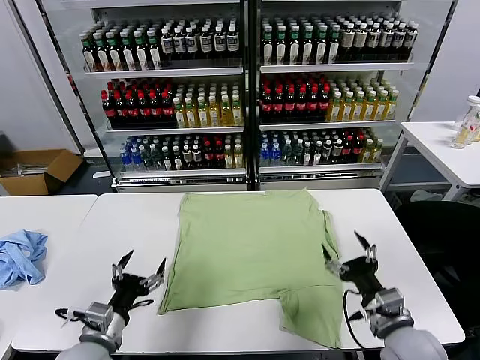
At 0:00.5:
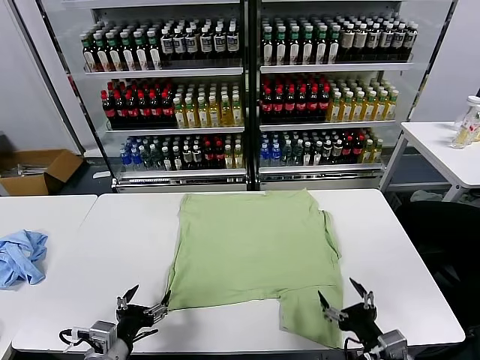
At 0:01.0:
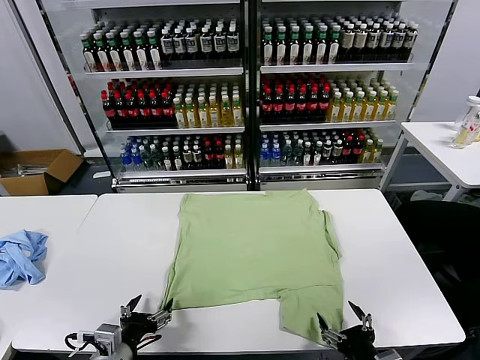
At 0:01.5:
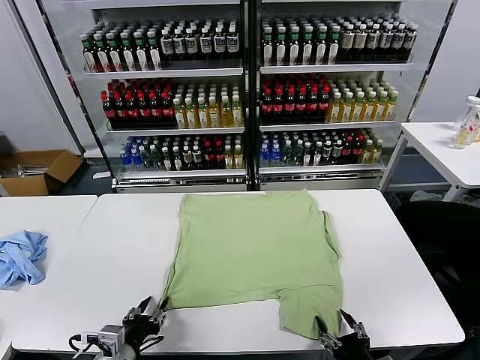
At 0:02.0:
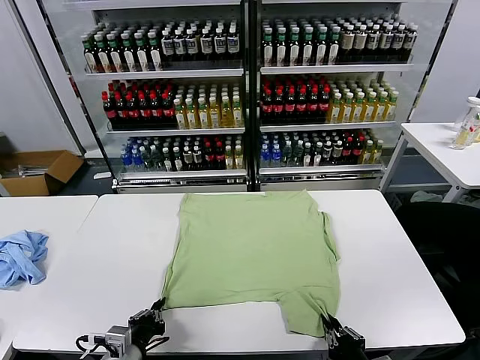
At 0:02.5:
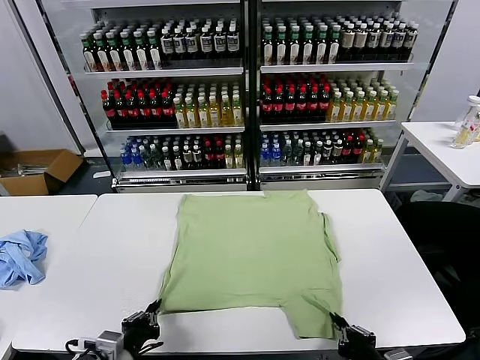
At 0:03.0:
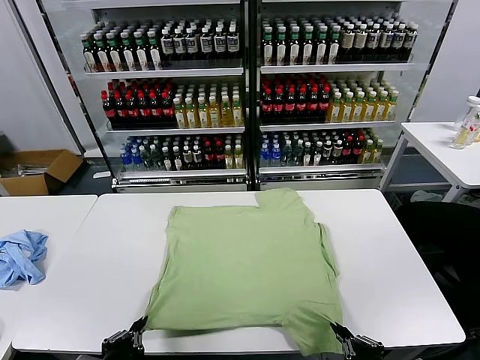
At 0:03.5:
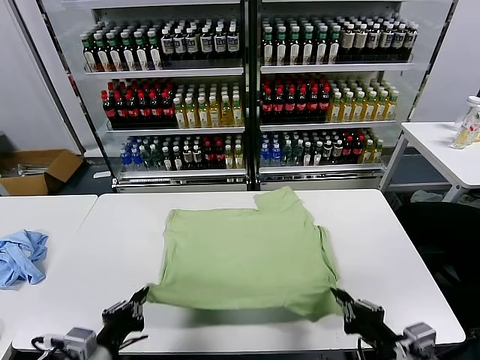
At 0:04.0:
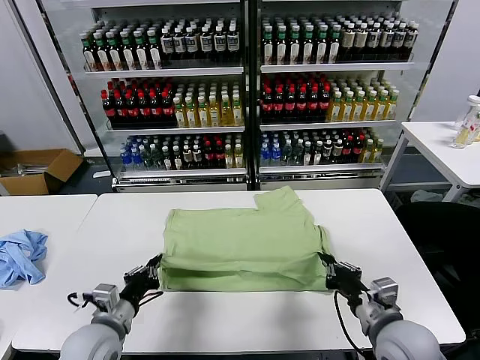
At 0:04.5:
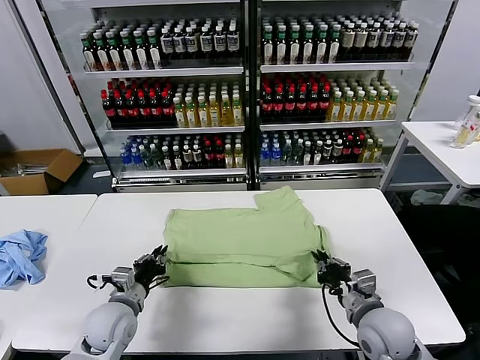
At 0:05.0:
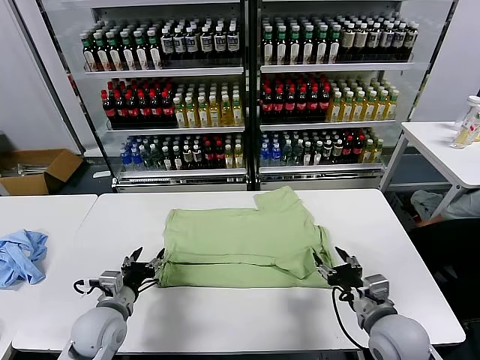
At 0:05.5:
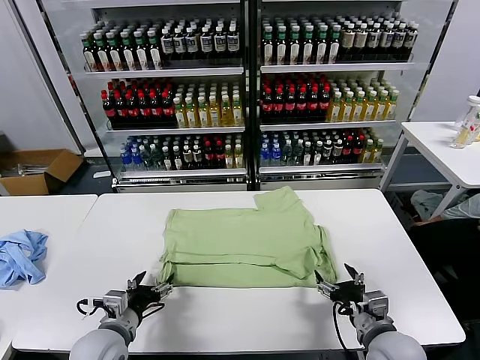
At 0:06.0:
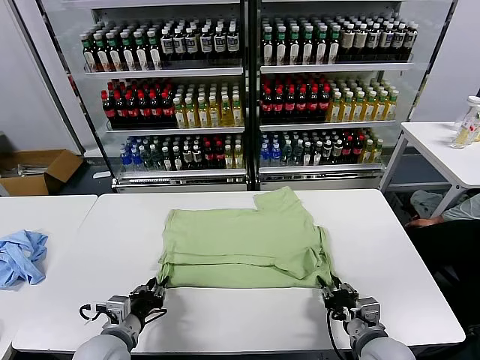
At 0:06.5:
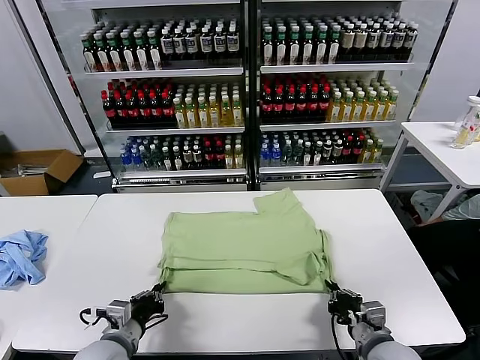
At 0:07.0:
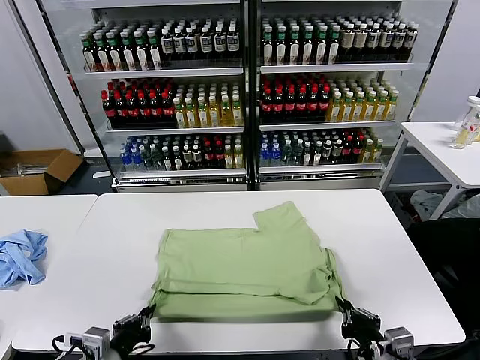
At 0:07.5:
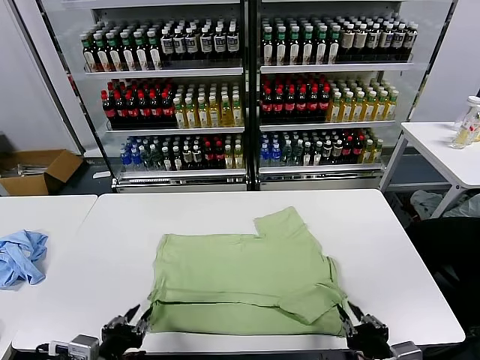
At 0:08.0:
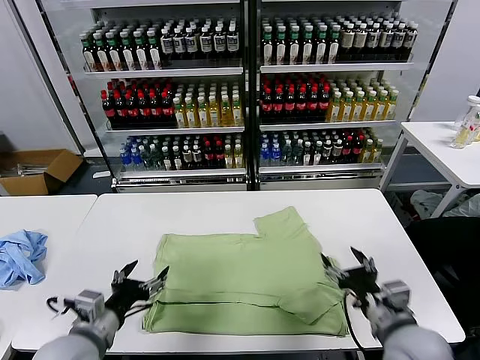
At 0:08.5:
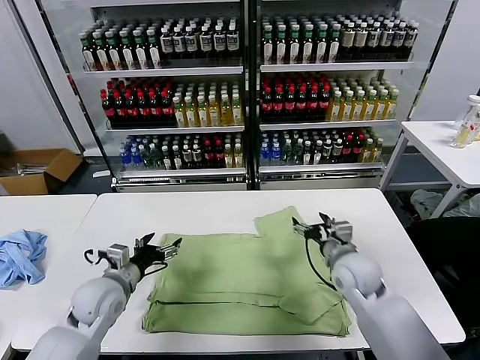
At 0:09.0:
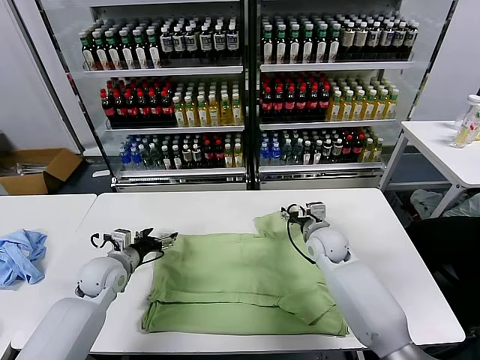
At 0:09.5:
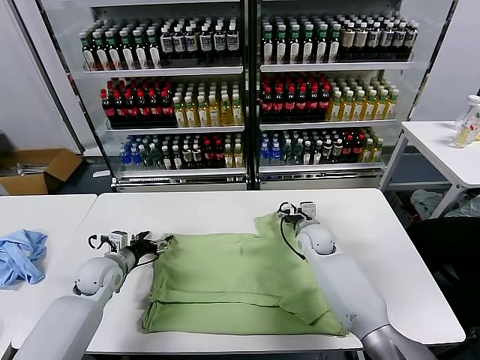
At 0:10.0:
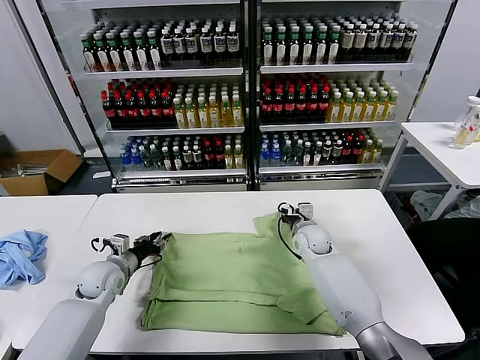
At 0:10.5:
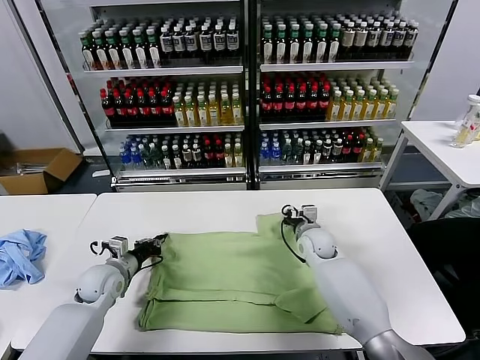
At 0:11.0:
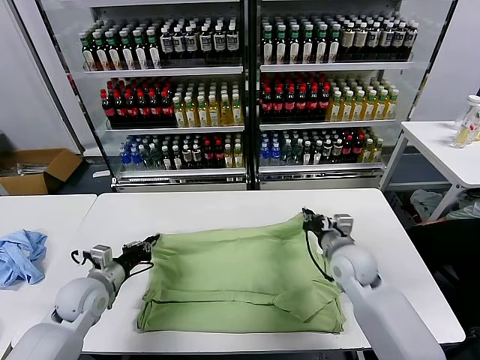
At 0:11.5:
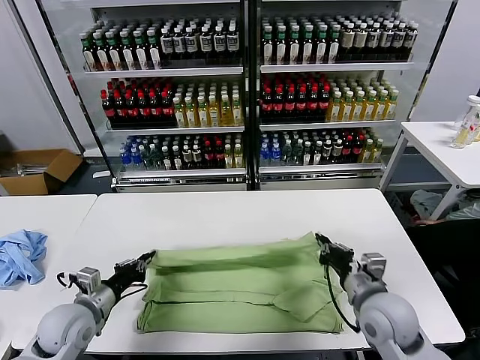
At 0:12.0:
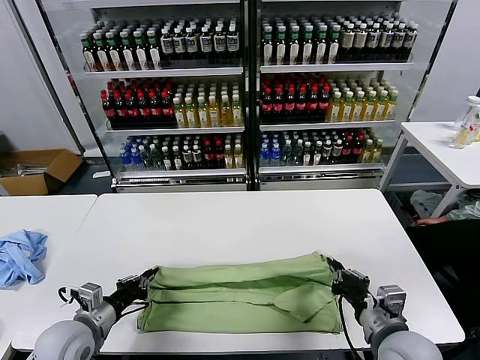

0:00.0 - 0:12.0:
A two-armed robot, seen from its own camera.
Task of the whole recording: fold and organize the clothes.
Step, 0:00.0 - 0:02.0: use both grippers simultaneously to clamp the lower edge of the clothing fabric.
Step, 0:03.0 - 0:05.0: use both grippers to drag the lower edge of the fabric forward and fold it over the upper edge.
Step, 0:05.5 - 0:07.5: Drag the clothes downward with both gripper.
Step, 0:08.0 - 0:10.0: use both grippers simultaneously to clamp the upper edge of the clothing fabric.
0:02.0 - 0:04.0: The left gripper shifts some 5 cm forward. The right gripper travels forward and upward by about 15 cm.
0:04.0 - 0:06.0: The right gripper goes roughly 5 cm downward, and opens and closes again; the left gripper opens and closes again.
0:06.0 - 0:08.0: Both grippers travel together upward, about 10 cm. The left gripper travels backward and back again, some 10 cm each way, and opens its fingers. Meanwhile the right gripper moves some 10 cm backward and comes back, and opens up.
0:08.0 - 0:10.0: The right gripper is displaced forward by some 25 cm, and closes, while the left gripper shifts some 20 cm forward and downward, and closes.
0:10.0 - 0:12.0: The right gripper shifts roughly 30 cm backward, and closes. The left gripper travels backward by roughly 15 cm.

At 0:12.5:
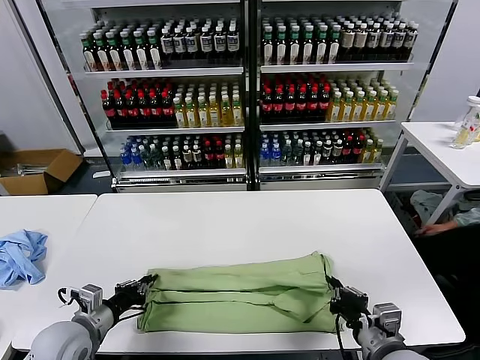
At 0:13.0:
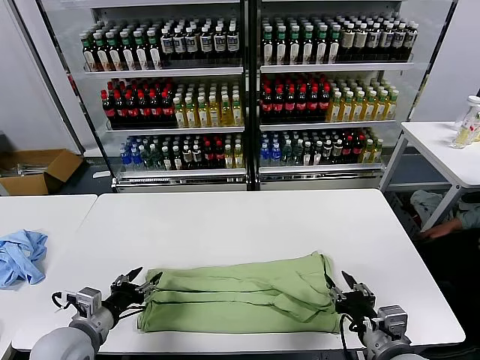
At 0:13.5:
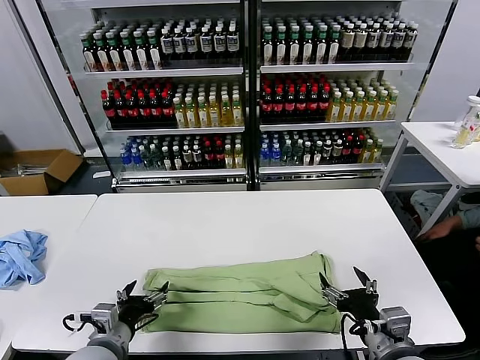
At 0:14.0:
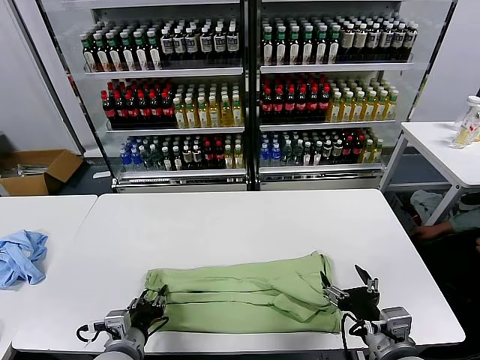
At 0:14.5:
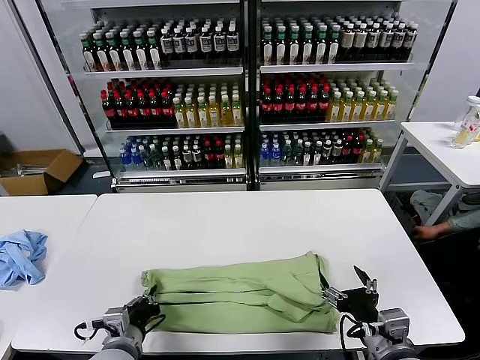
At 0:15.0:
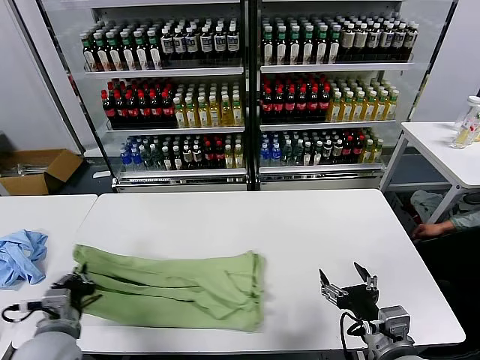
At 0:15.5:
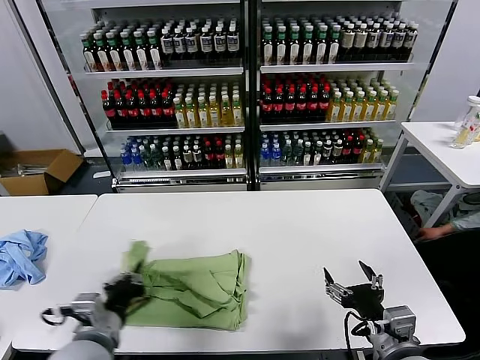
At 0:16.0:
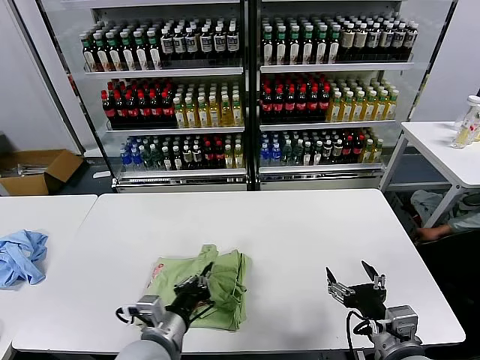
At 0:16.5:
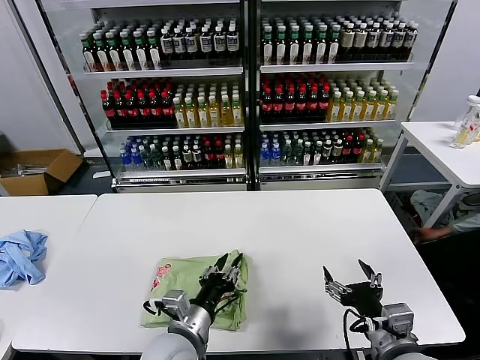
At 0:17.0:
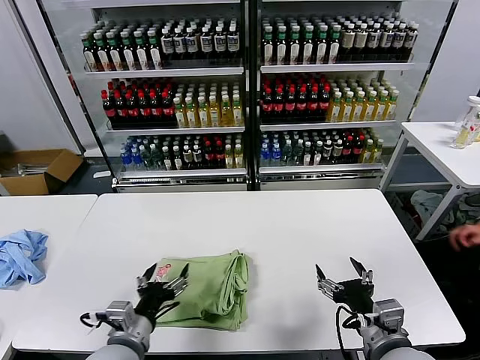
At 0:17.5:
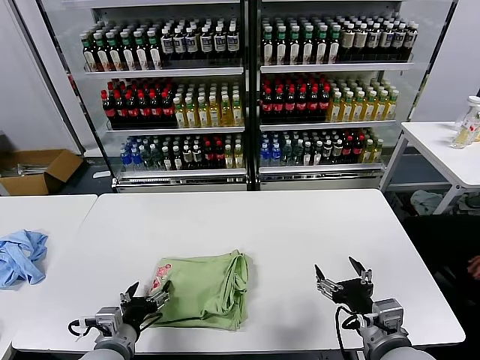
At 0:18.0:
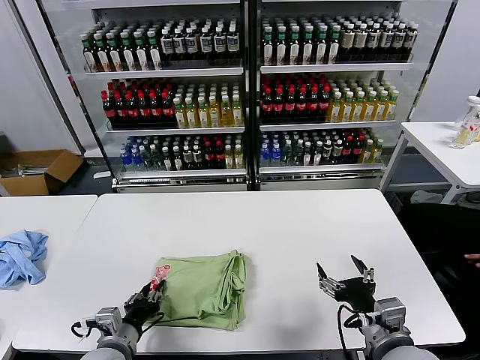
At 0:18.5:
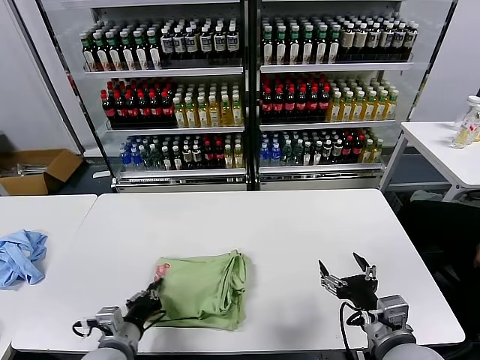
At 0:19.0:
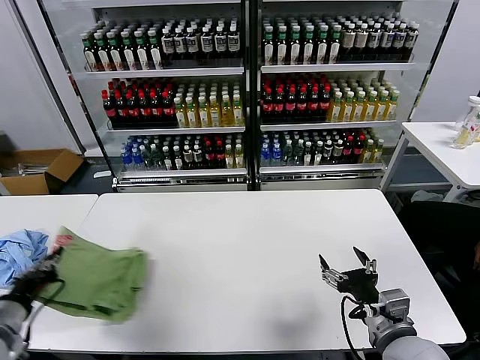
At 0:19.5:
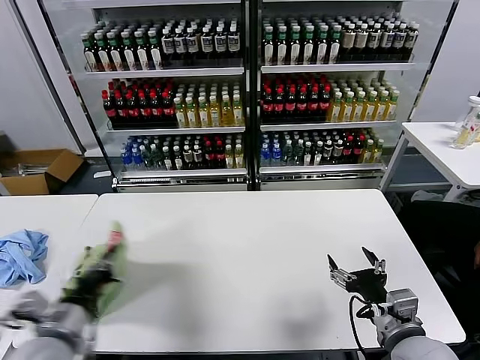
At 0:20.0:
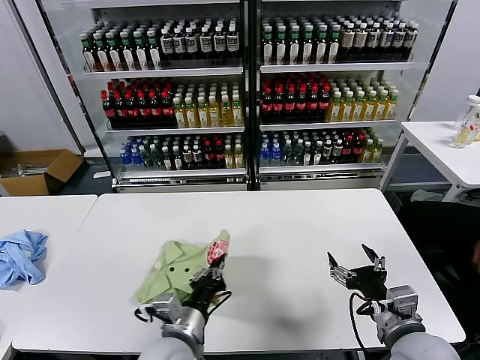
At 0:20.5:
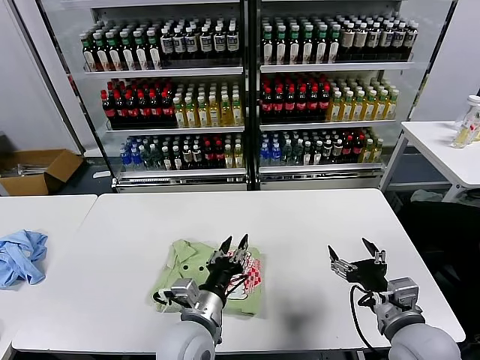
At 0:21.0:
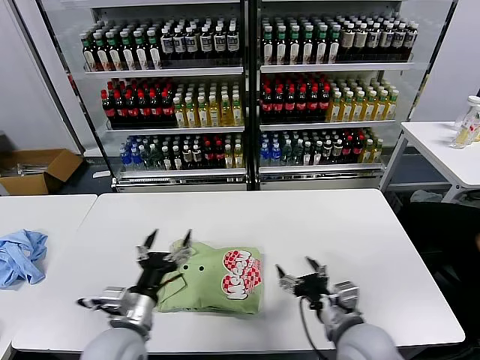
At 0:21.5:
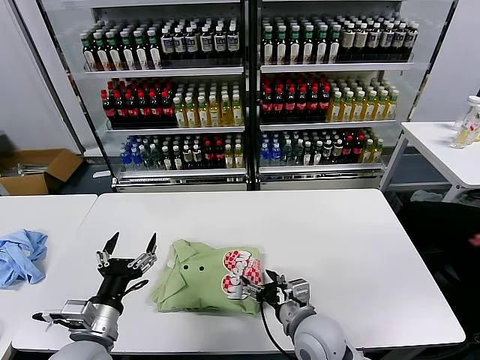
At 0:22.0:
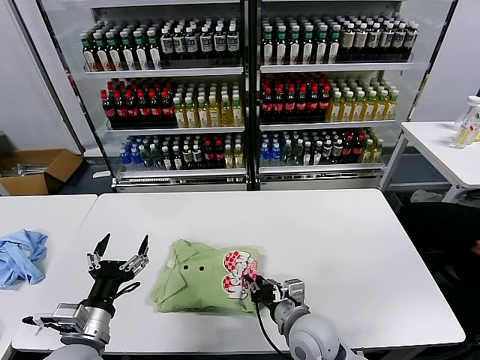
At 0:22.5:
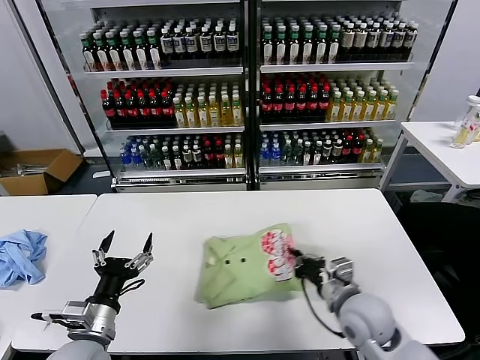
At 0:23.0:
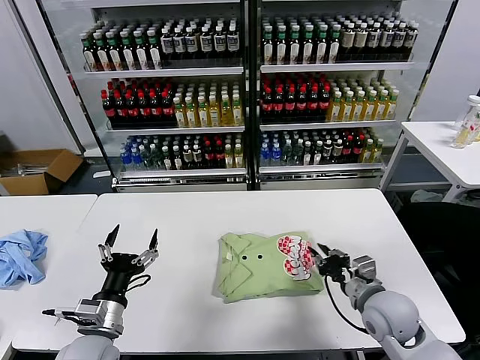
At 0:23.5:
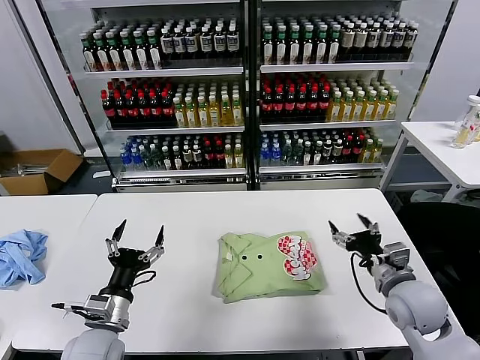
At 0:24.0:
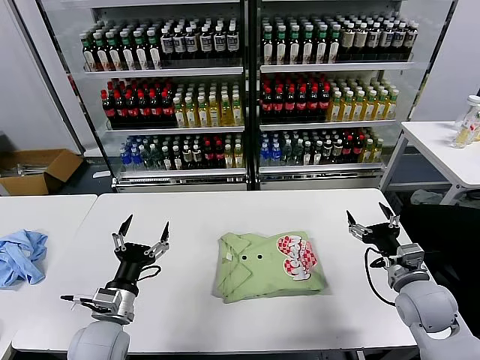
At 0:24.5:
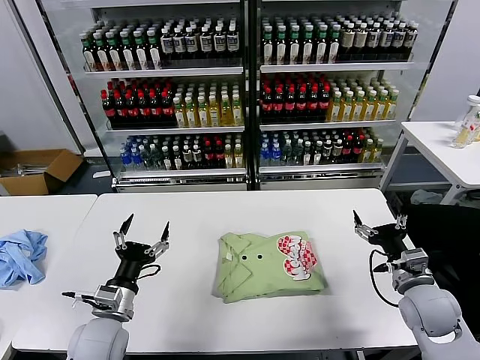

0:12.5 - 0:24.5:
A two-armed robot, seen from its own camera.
Task of the whole recording: fold and organize the clothes.
Step, 0:13.5 - 0:14.0: use the left gripper to clamp the left edge of the fabric.
Step, 0:14.5 - 0:16.5: use the left gripper to drag the left edge of the fabric to the left and folds it over the right edge.
Step, 0:17.0 - 0:20.5: Flip the folded clothes over with left gripper.
Step, 0:21.0 - 0:23.0: Drag the clothes to the center of the table.
0:12.5 - 0:14.5: The right gripper opens up, while the left gripper goes roughly 10 cm to the right, and opens and closes again.
0:14.5 - 0:16.5: The left gripper goes roughly 10 cm to the right, and opens up.
0:16.5 - 0:18.5: The left gripper heads to the left and downward, covering about 15 cm, and closes.
0:18.5 - 0:20.5: The left gripper goes approximately 20 cm to the right and upward, and opens up.
0:20.5 - 0:22.5: The left gripper moves to the left, roughly 20 cm, and opens its fingers. Meanwhile the right gripper moves forward and to the left, about 10 cm, and closes its fingers.
0:22.5 - 0:24.5: The left gripper goes roughly 5 cm forward; the right gripper travels to the right by some 15 cm, and opens up.

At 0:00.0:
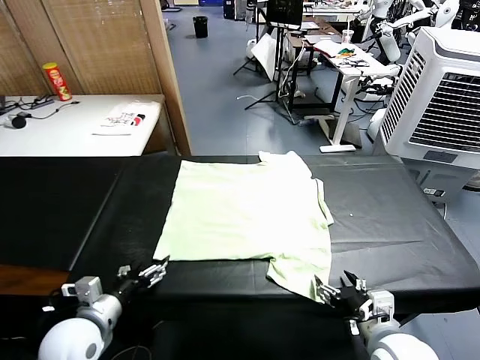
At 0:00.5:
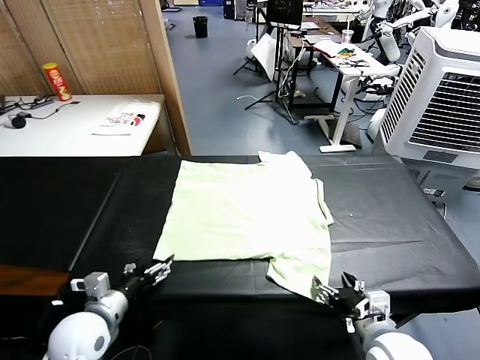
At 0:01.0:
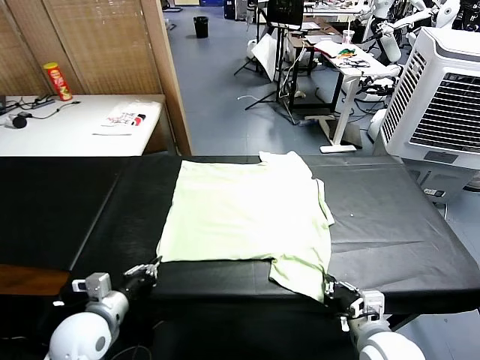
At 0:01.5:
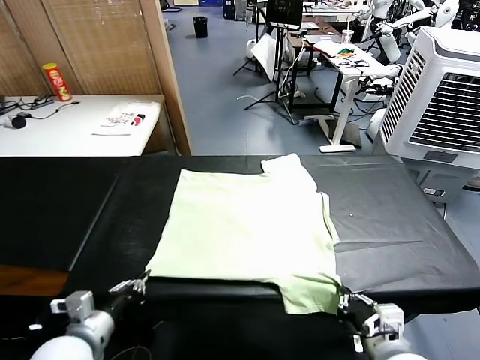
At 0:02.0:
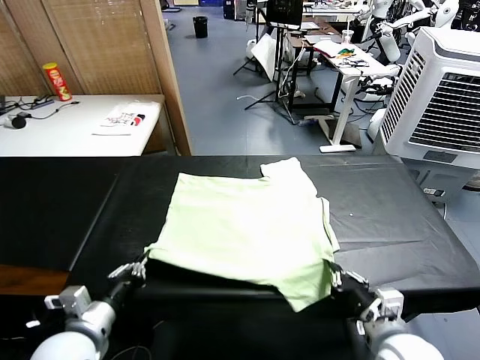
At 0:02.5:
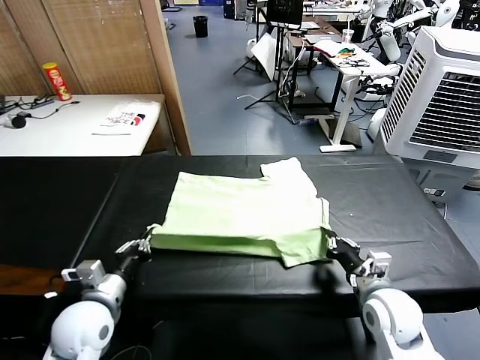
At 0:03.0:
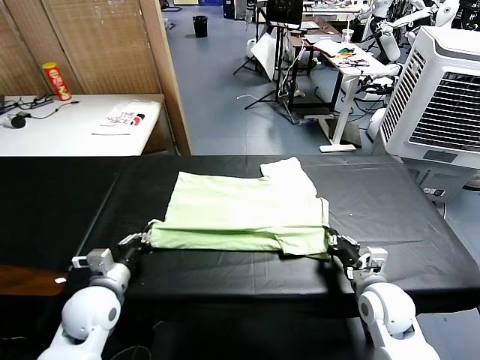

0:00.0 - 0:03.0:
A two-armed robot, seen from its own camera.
Task of the whole recording: fold and organize the clothes.
Step, 0:00.0 - 0:01.0: use both grippers simultaneously to clamp the lower edge of the clothing fabric.
0:01.5 - 0:03.0: The right gripper goes about 15 cm forward and downward. Meanwhile the left gripper is displaced forward by approximately 10 cm.
